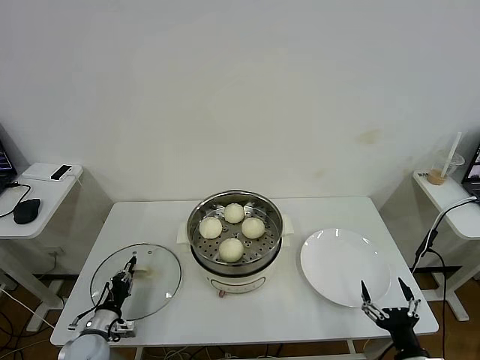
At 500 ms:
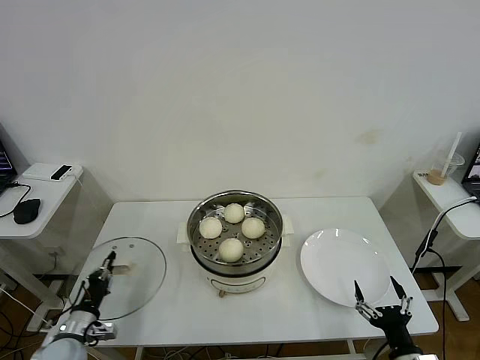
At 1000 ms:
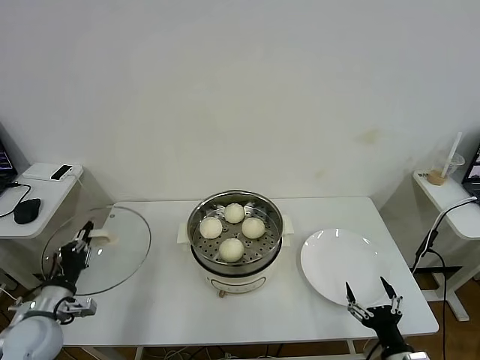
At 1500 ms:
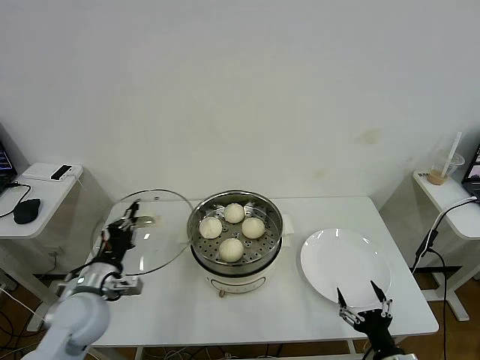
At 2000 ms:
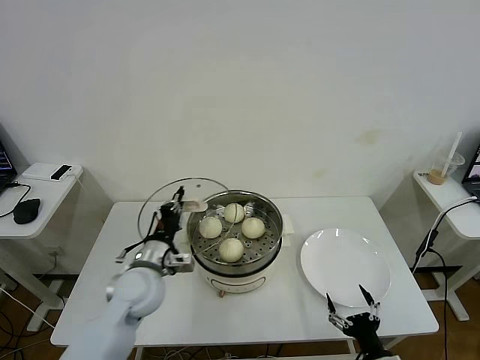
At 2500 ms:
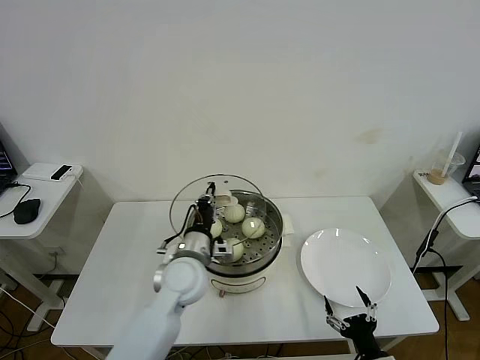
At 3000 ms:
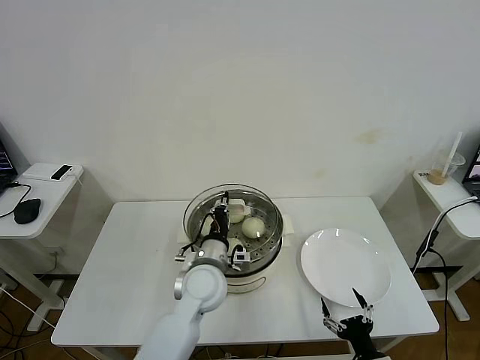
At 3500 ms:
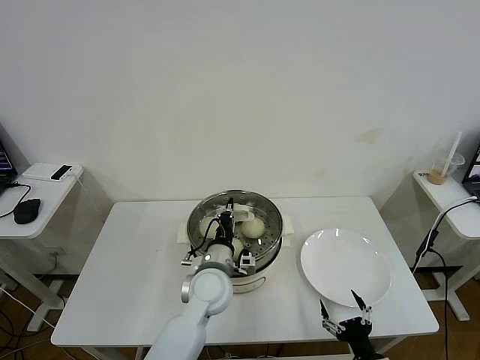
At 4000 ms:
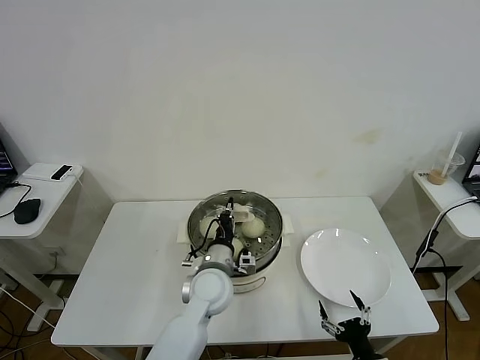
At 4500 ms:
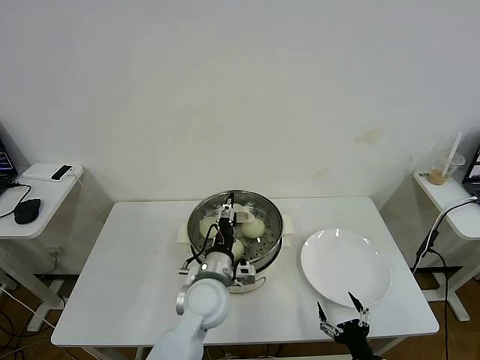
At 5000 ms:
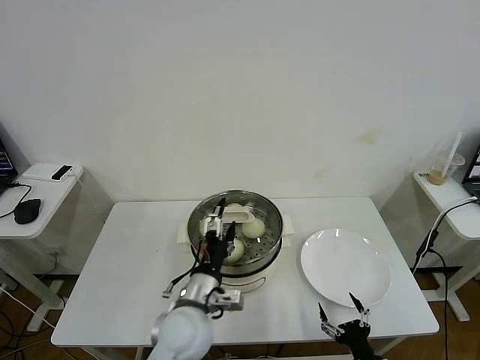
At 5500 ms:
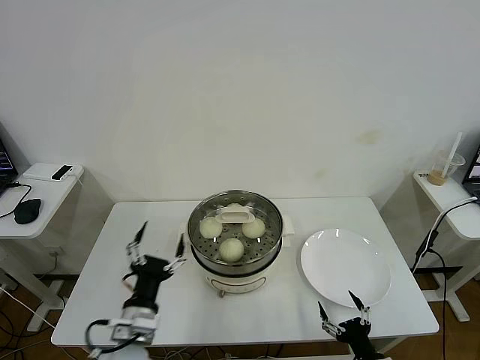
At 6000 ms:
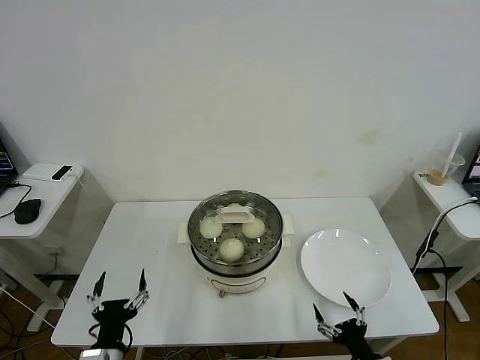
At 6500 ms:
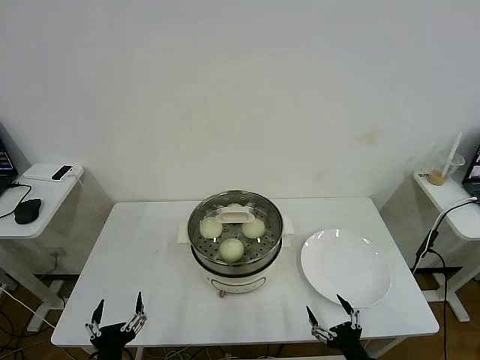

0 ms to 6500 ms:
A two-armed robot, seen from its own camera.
Task of the whole recording: take steamed baozi put them in steamer then cover it.
Step, 500 ms to 4500 ms: Place the pot lid on the steamer with left gripper.
0 ms to 2000 ms: The right gripper changes place by approximately 5 cm. Meanwhile the left gripper shifts some 25 cm upward and to the right.
2000 ms to 4500 ms: The left gripper moves to the right, about 15 cm, and opens its fingers.
4500 ms to 6500 ms: The left gripper heads backward and to the left, covering roughly 30 cm.
